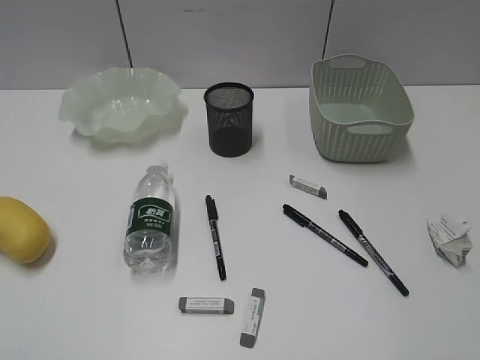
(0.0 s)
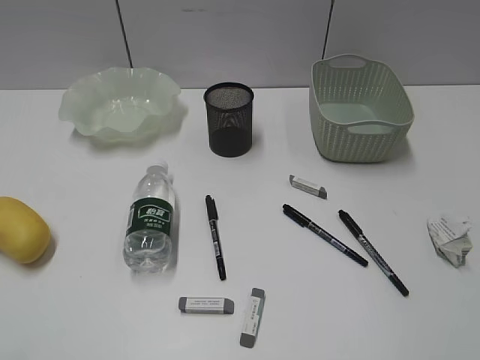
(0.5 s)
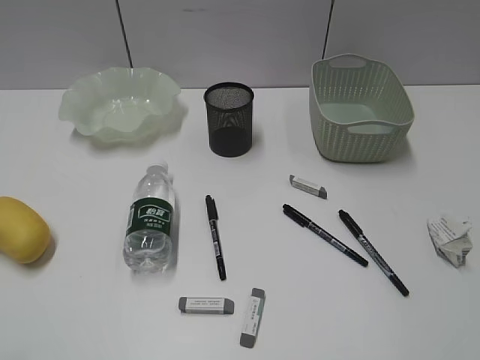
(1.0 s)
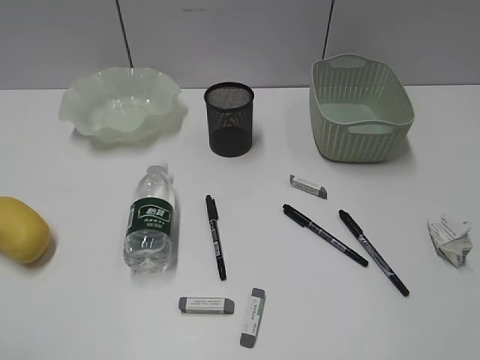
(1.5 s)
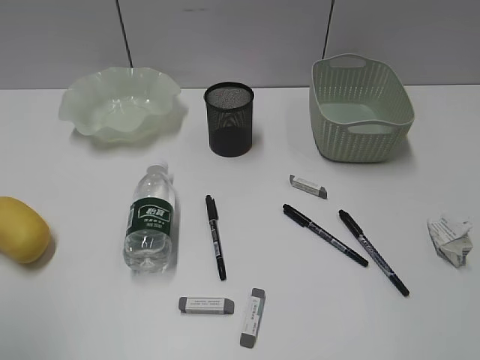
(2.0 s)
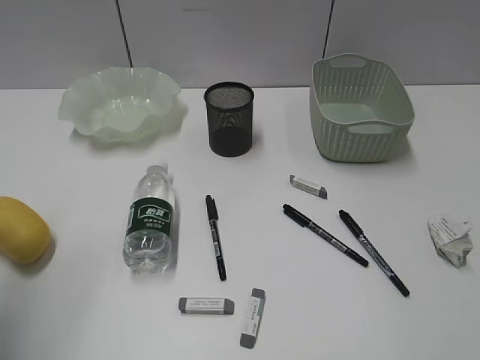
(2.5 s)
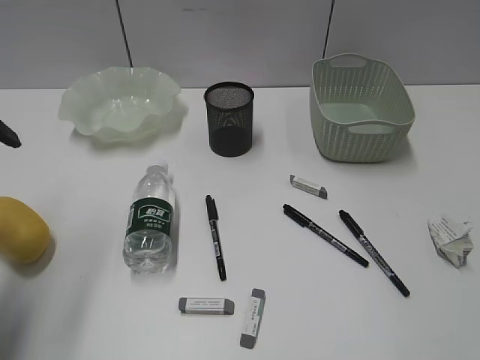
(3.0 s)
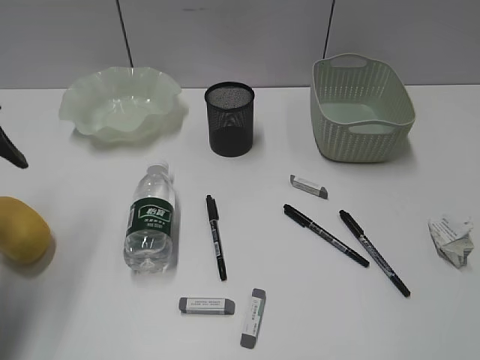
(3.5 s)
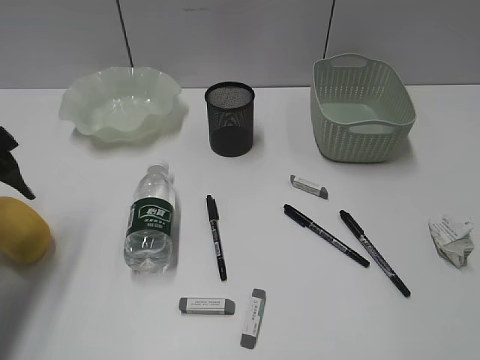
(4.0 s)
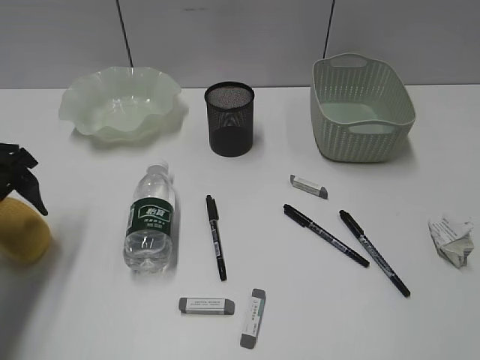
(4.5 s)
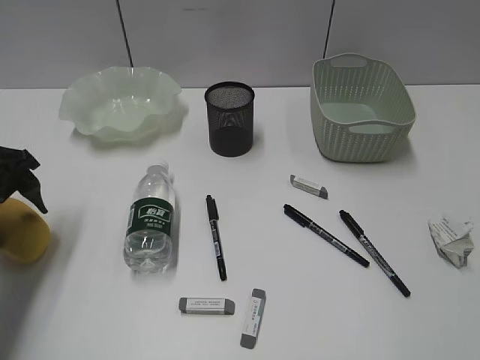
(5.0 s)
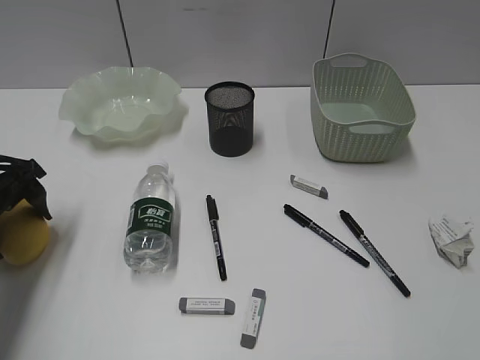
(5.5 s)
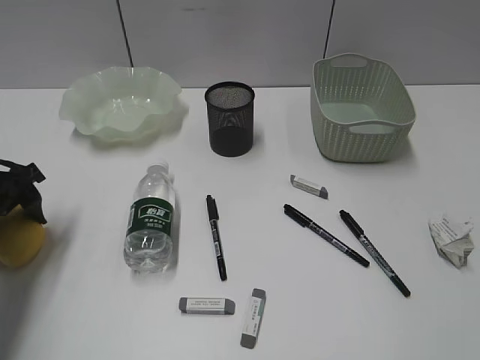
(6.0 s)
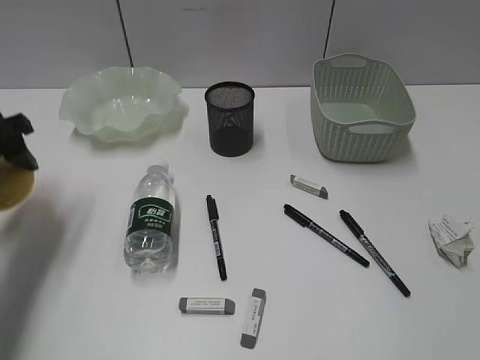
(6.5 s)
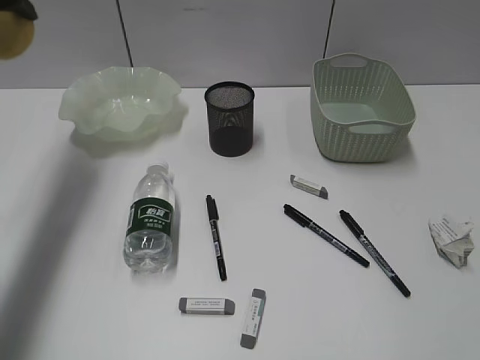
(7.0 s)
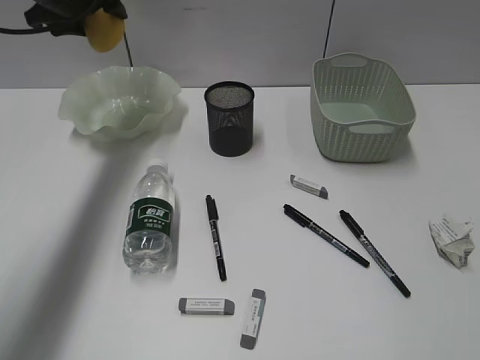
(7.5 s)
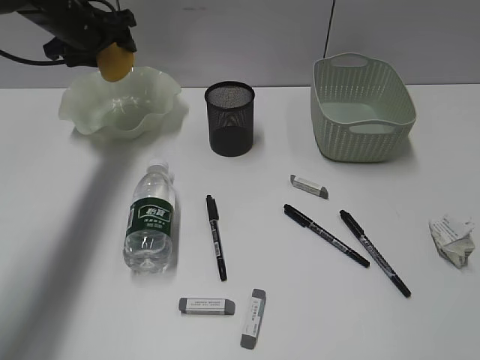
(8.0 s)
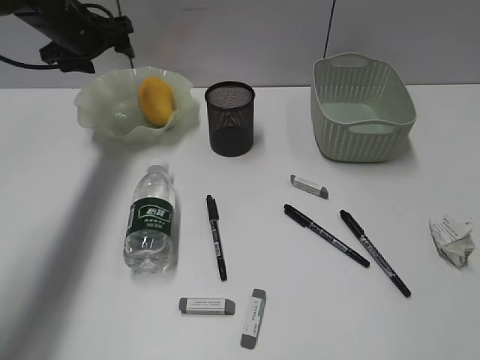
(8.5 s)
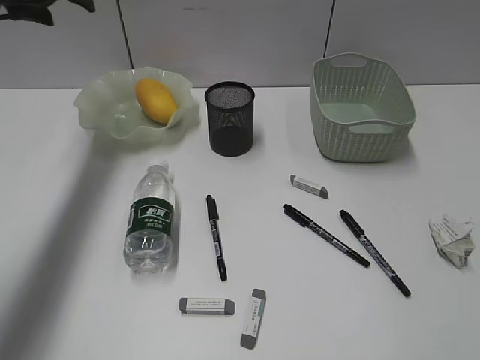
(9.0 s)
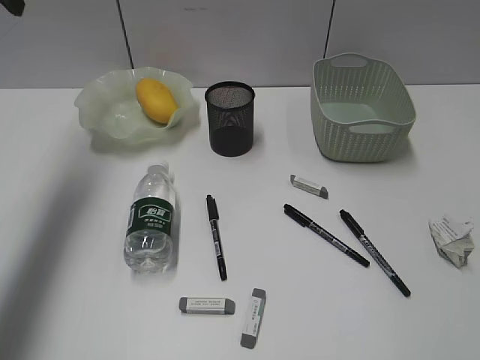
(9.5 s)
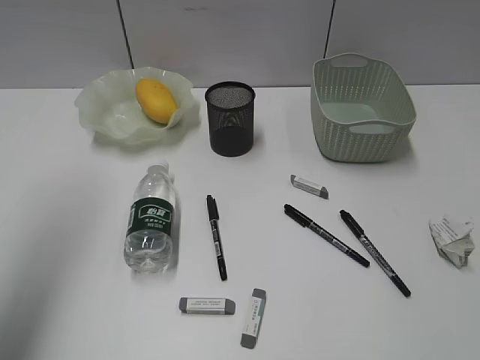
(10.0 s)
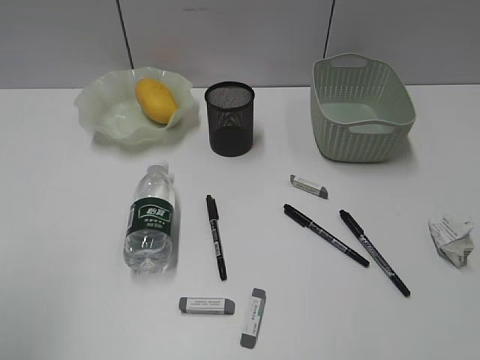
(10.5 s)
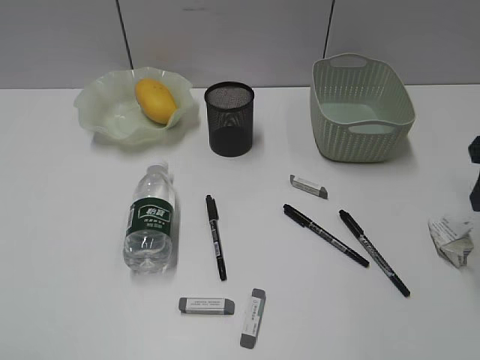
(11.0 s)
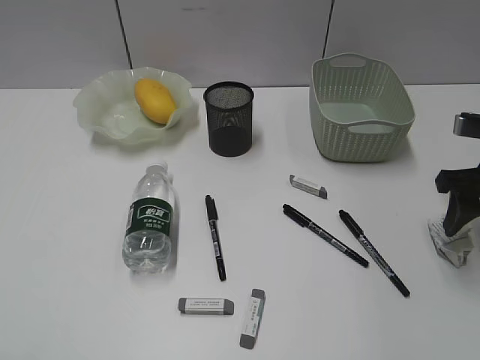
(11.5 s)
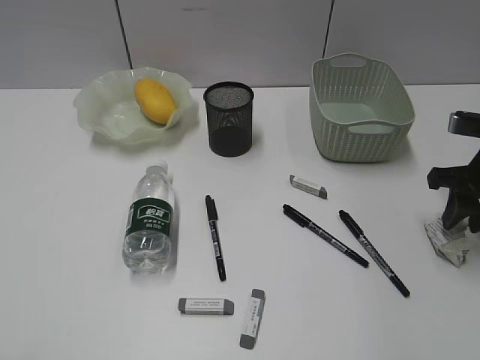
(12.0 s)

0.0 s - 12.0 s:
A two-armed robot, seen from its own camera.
Step, 3.0 s - 6.0 s: Grasp the mango with left gripper.
Step, 6.5 s - 8.0 s: Place the mango in the plate with left gripper.
2.0 s - 4.0 s: The left gripper moves forward and downward, about 25 cm.
4.0 s - 6.0 s: The left gripper travels downward by roughly 5 cm.
6.0 s - 8.0 s: The left gripper heads forward and upward, covering roughly 25 cm.
8.0 s - 10.0 s: The right gripper moves upward and forward, about 10 cm. The left gripper moves backward and upward, roughly 35 cm.
10.0 s - 12.0 s: The left gripper goes about 30 cm backward and downward. The right gripper is displaced forward and downward by some 35 cm, and closes up.

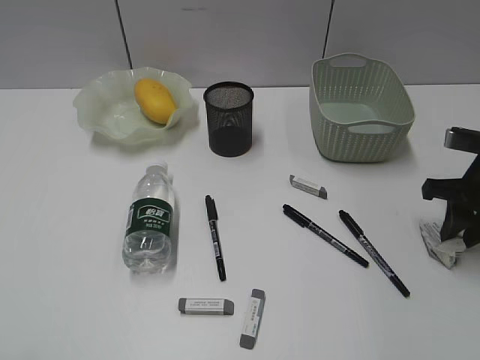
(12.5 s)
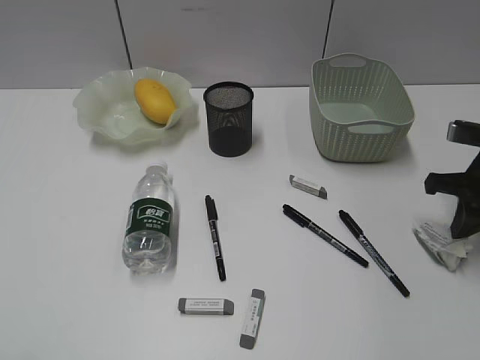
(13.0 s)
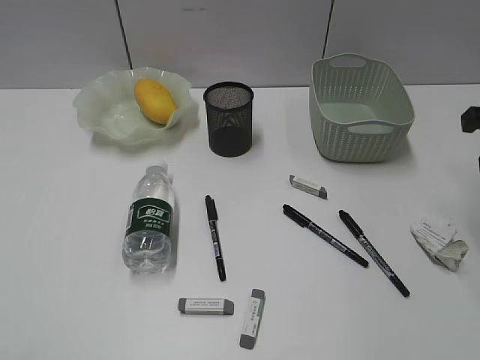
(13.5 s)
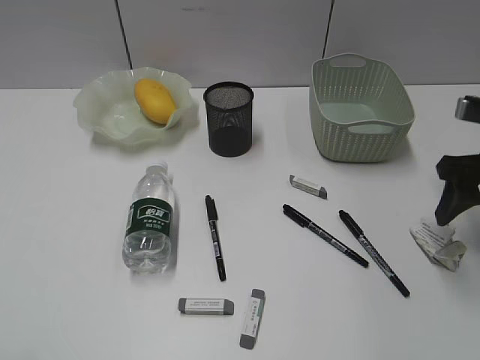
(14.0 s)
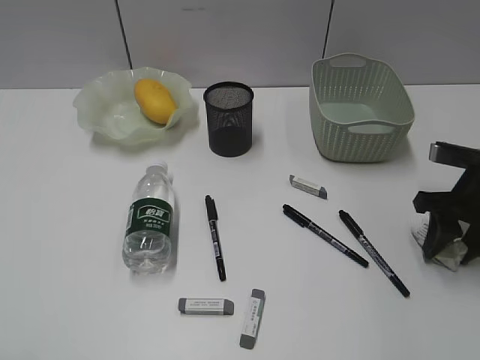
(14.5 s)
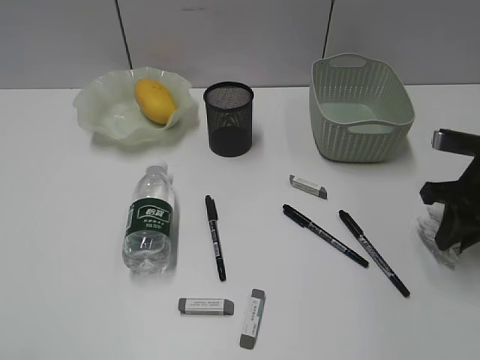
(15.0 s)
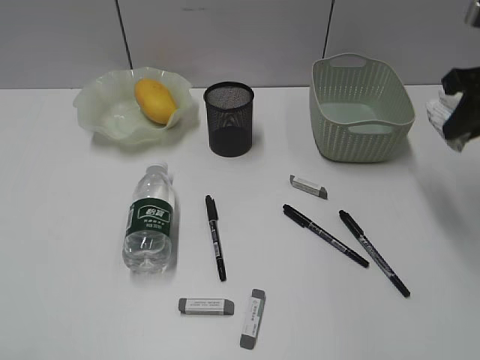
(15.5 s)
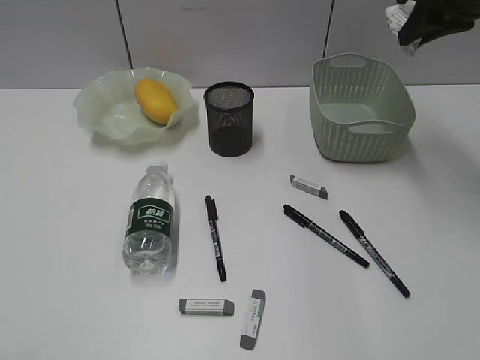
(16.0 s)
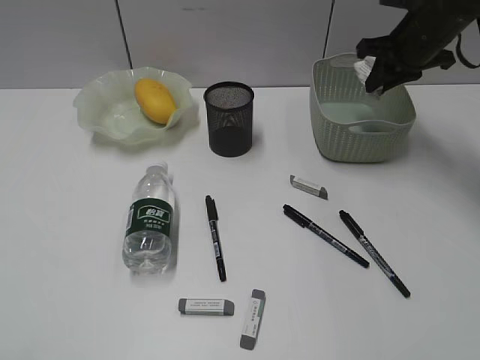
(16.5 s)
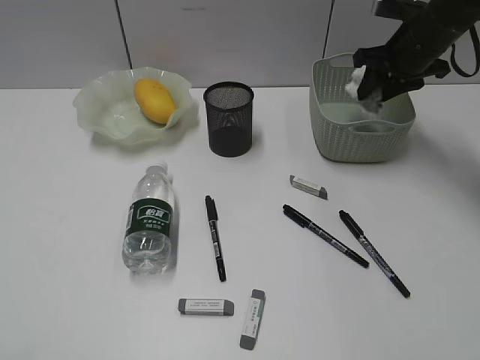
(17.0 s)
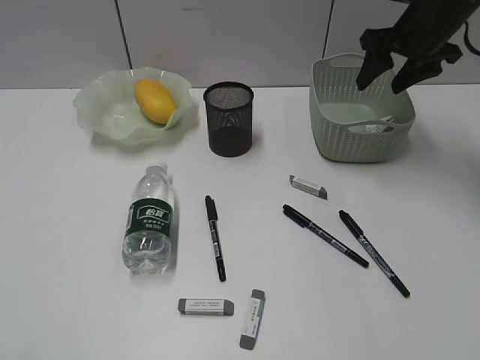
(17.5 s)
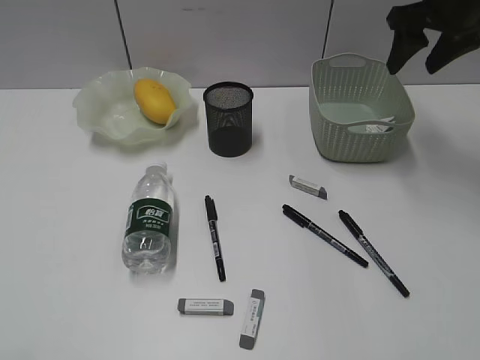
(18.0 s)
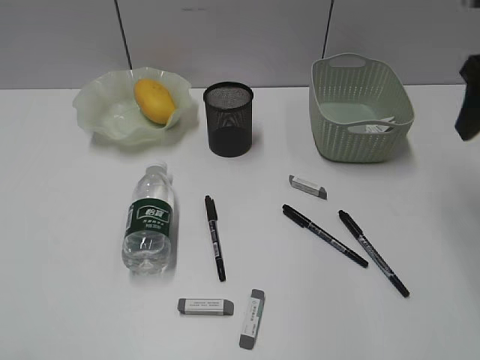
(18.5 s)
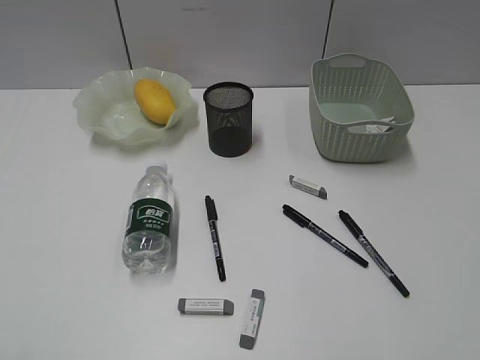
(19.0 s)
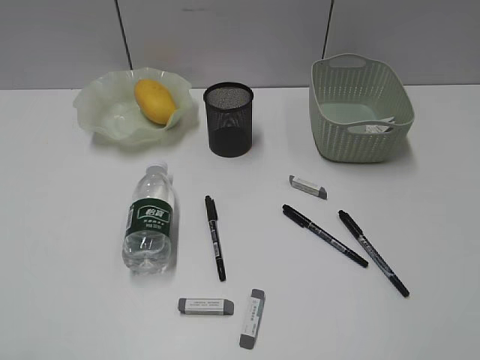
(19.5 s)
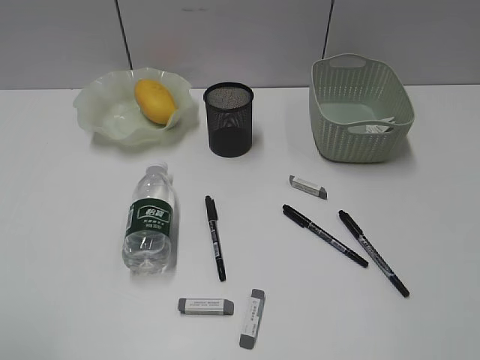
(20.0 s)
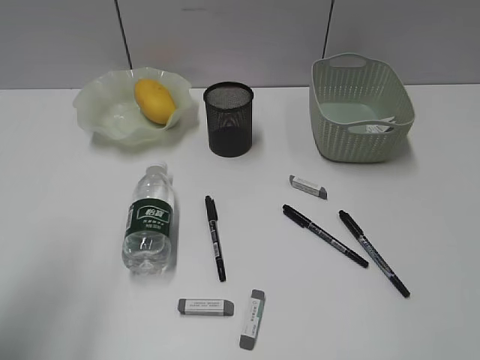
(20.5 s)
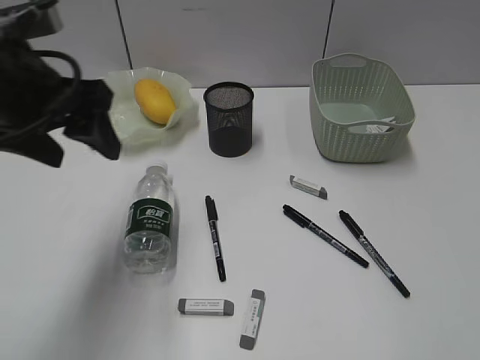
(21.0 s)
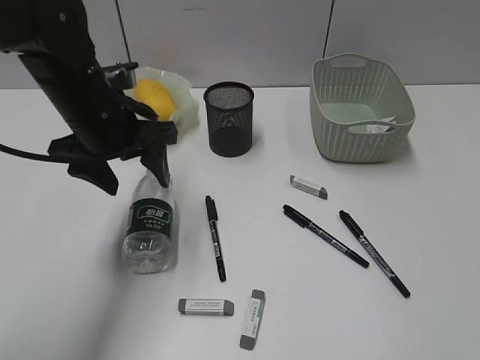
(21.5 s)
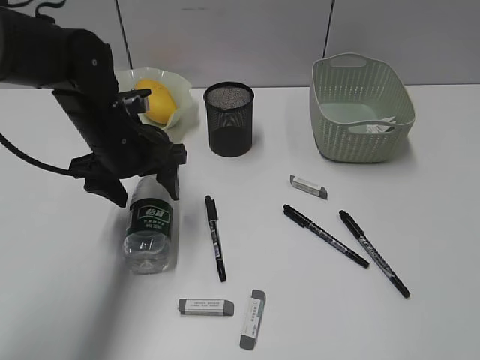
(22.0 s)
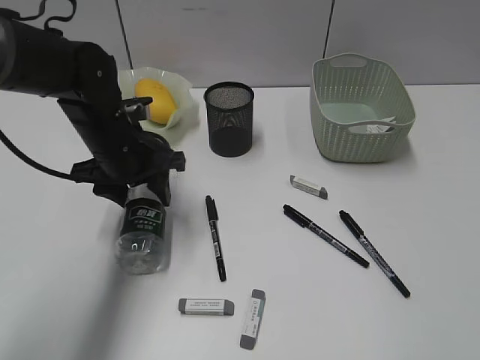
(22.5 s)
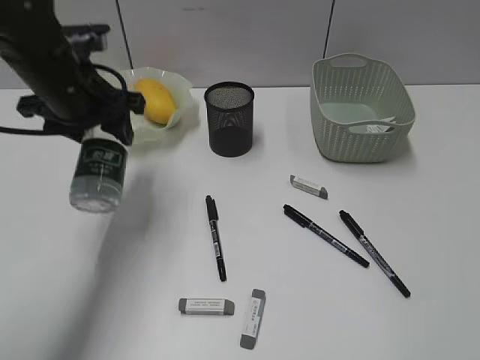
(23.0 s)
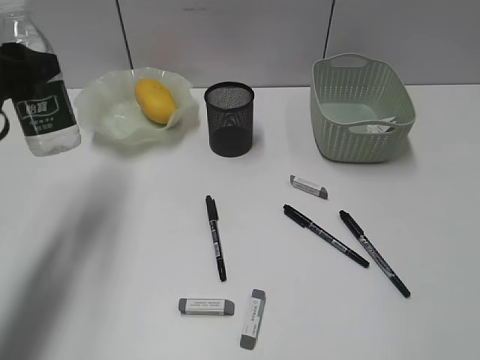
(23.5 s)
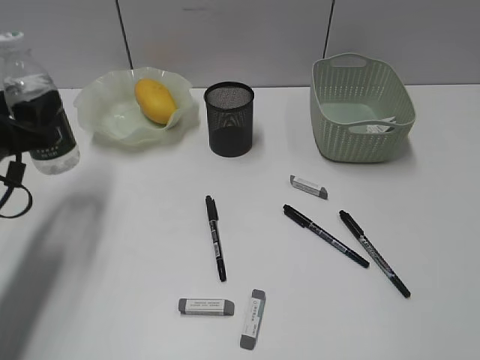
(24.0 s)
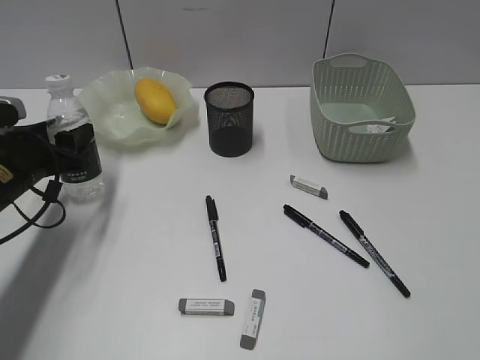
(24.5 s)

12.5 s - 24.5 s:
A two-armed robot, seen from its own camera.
Step, 12.5 s - 14.5 s: Grasp the waste paper with right gripper.
Step, 15.0 s - 17.0 s: Place the waste paper in the basket with right gripper.
Step, 17.5 s - 22.5 s: Grasp the bottle with left gripper.
12.5 s - 14.5 s: The right gripper reaches some 10 cm upward, then returns, and closes, then opens again.
14.5 s - 16.5 s: The right gripper travels forward and upward by some 20 cm, and closes.
16.5 s - 18.5 s: The right gripper moves backward and upward, some 20 cm, and opens up.
18.5 s - 20.5 s: The right gripper heads backward, covering some 30 cm; the left gripper heads forward, covering about 15 cm.
20.5 s - 22.5 s: The left gripper is displaced forward, downward and to the right by some 30 cm.
22.5 s - 24.5 s: The left gripper goes roughly 10 cm to the left, and goes upward and returns, some 10 cm each way.

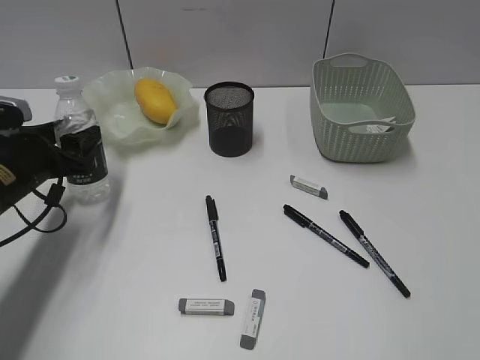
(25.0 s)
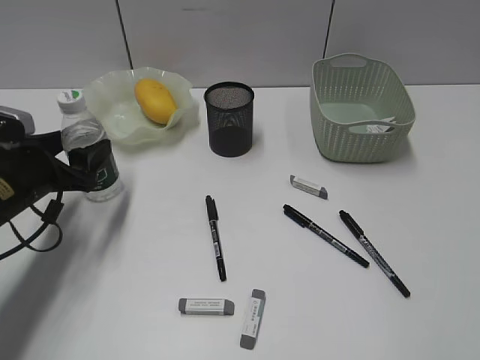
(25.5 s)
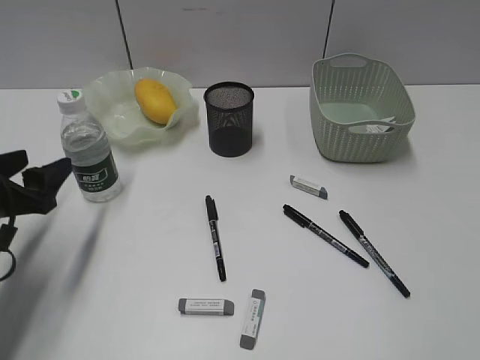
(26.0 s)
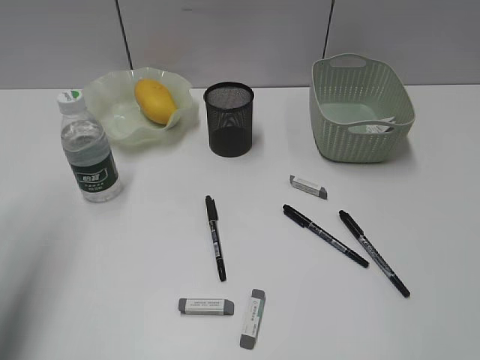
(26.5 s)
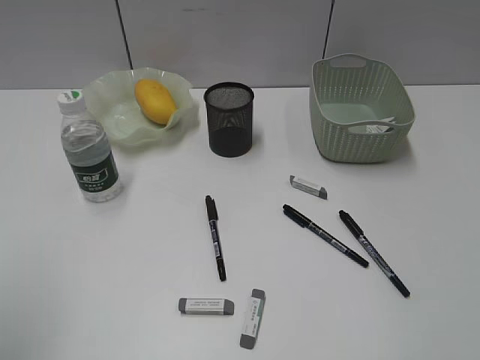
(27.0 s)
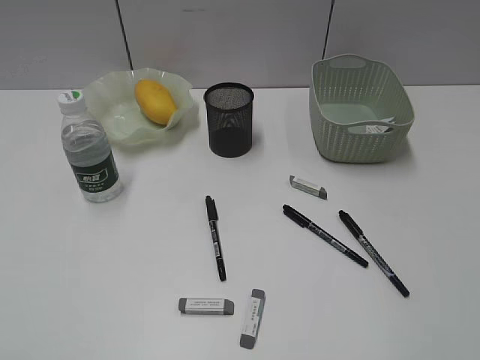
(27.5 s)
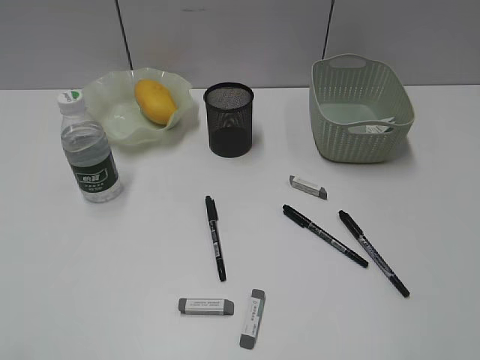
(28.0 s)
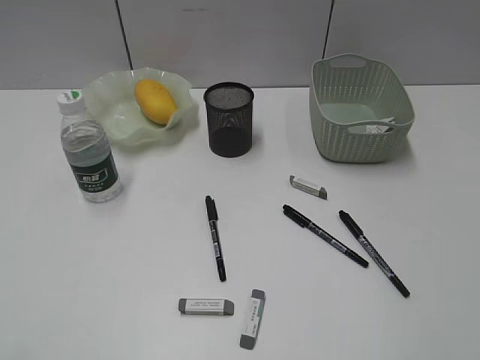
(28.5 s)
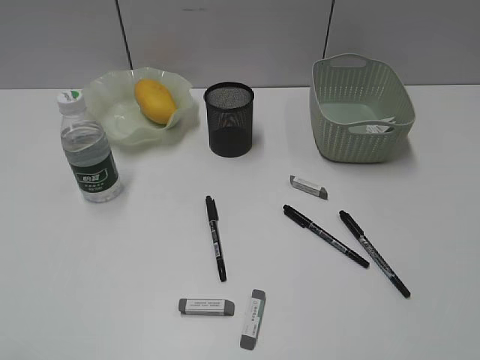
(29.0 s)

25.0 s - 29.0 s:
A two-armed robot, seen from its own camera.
25.0 s - 27.0 s: The left gripper moves upward and backward, some 35 cm.
